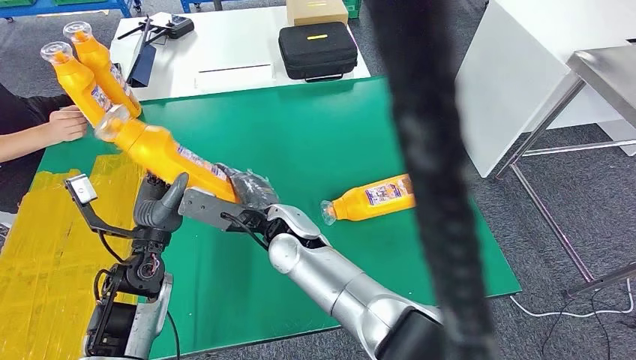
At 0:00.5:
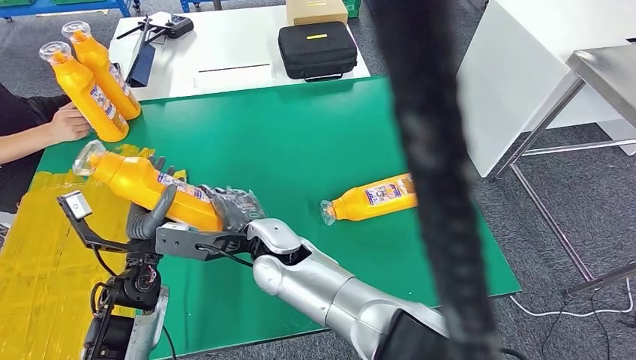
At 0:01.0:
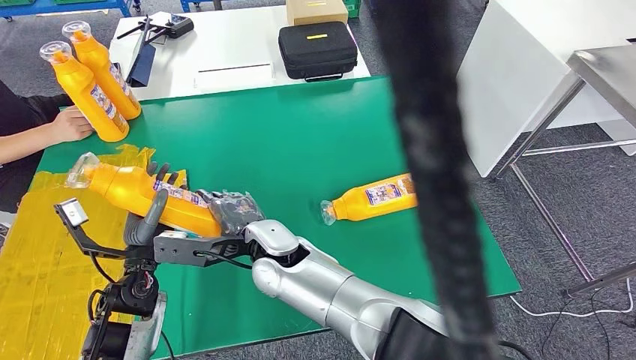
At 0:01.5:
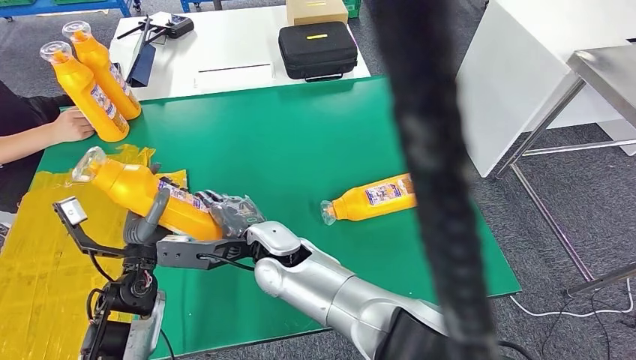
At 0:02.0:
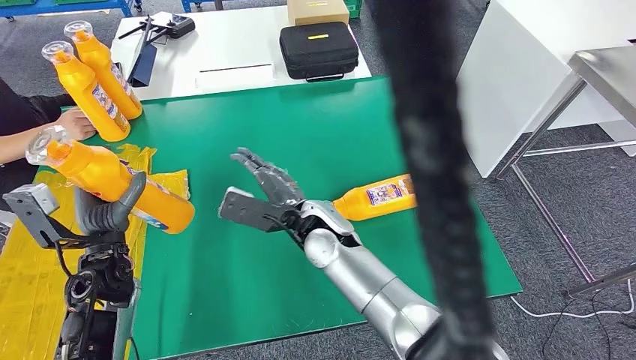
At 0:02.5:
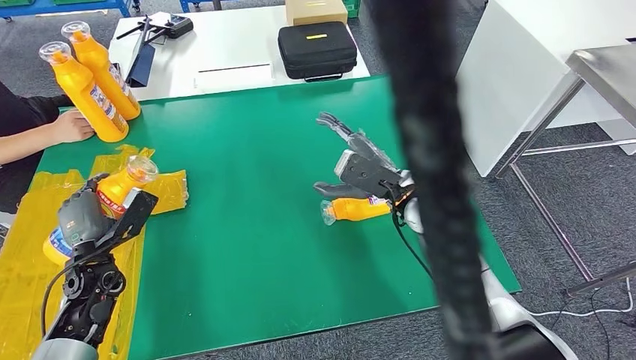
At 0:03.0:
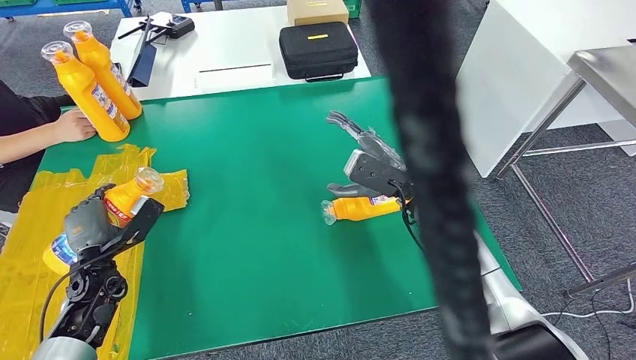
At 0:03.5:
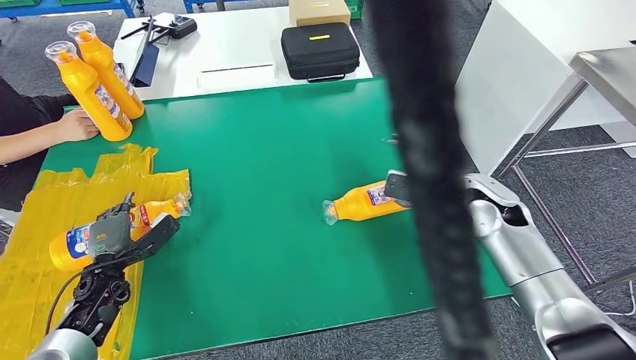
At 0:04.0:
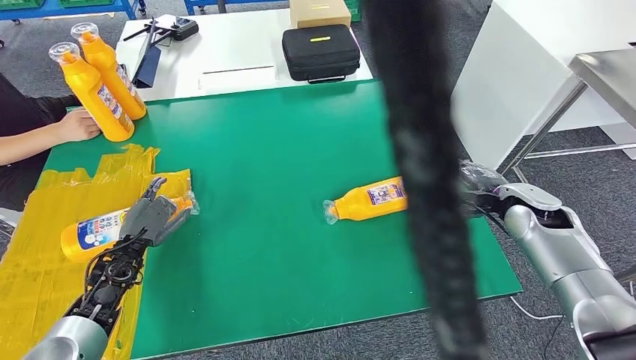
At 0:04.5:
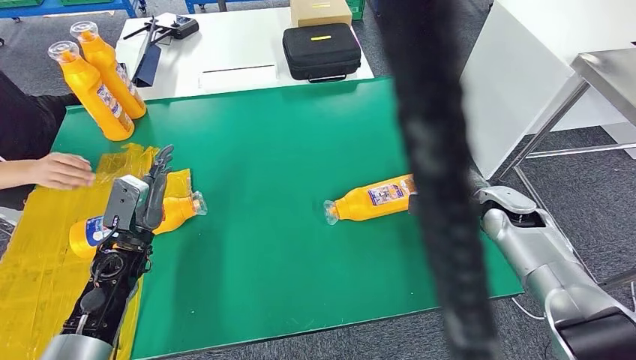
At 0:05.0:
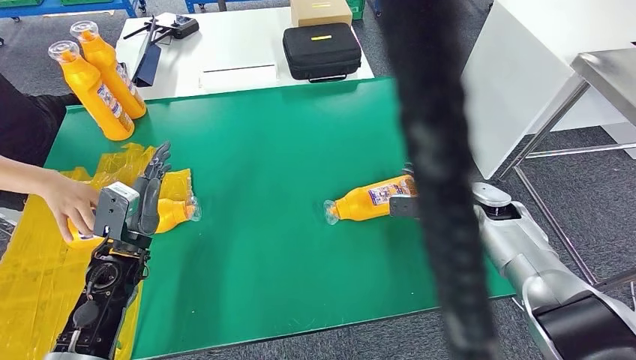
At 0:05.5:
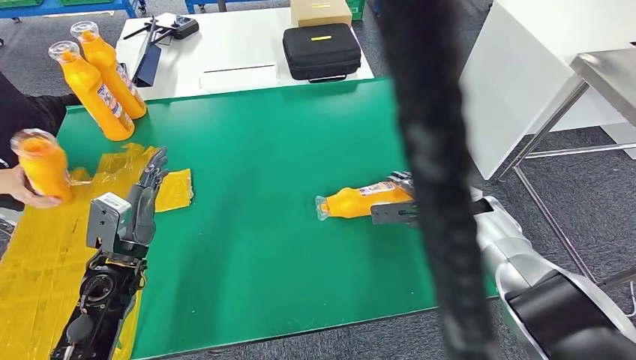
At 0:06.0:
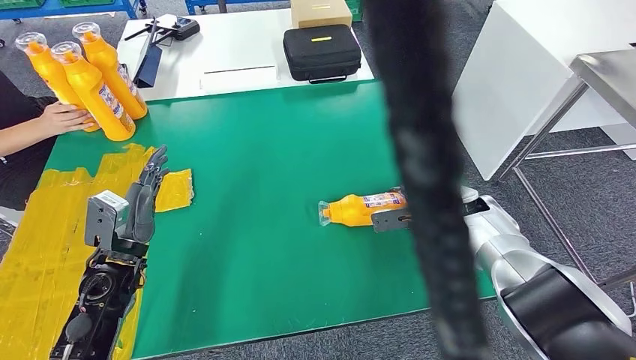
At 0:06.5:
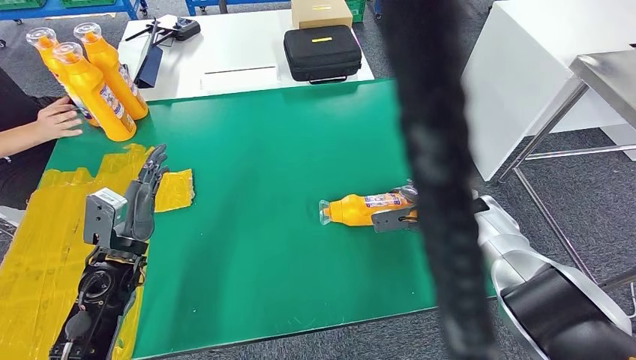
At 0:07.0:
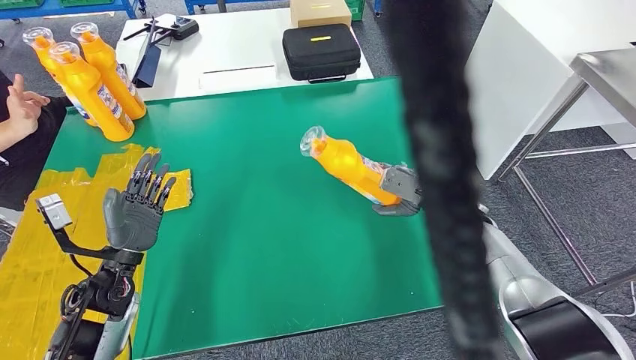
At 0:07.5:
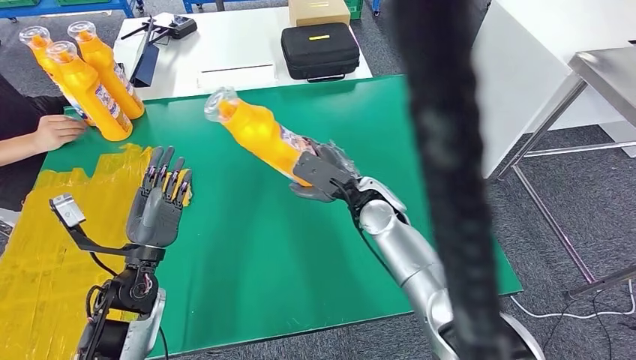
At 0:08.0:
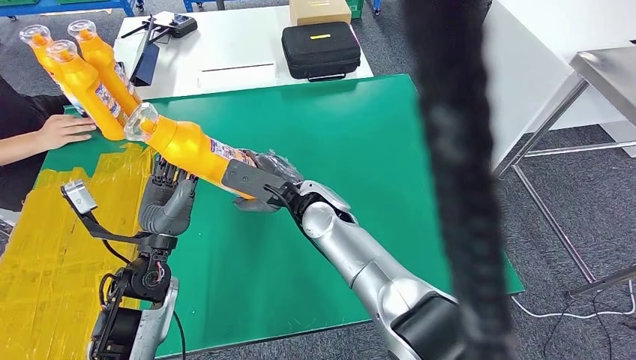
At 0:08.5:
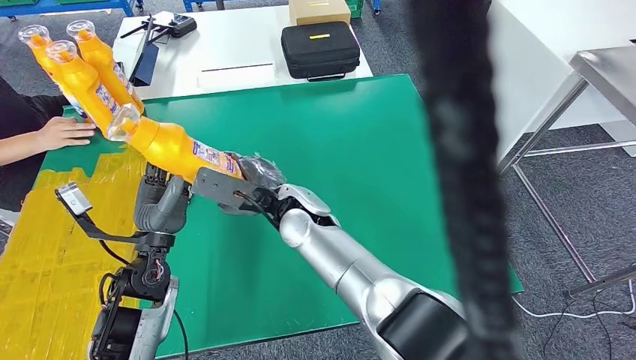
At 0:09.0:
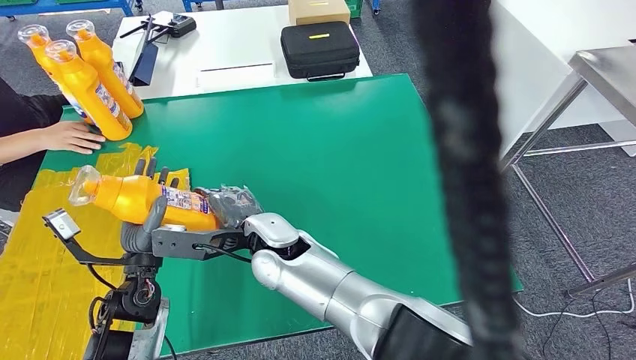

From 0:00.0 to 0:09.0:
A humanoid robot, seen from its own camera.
Step, from 0:01.5 to 0:04.5: Flip the fast-moving consumer goods bottle to the front side.

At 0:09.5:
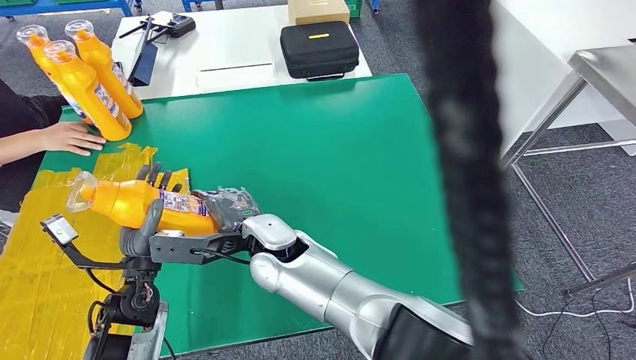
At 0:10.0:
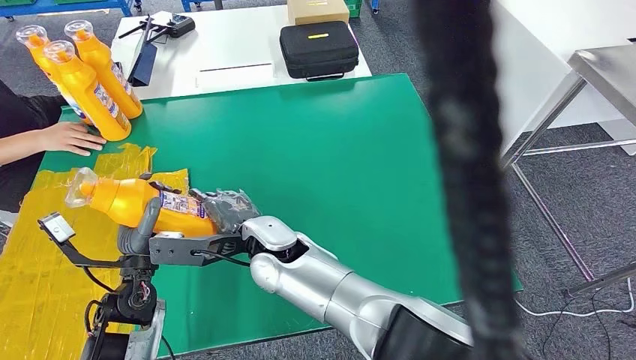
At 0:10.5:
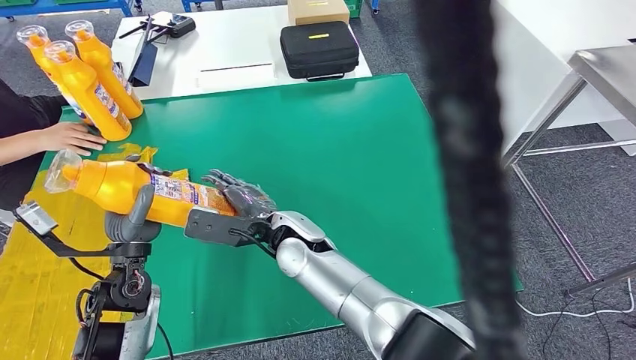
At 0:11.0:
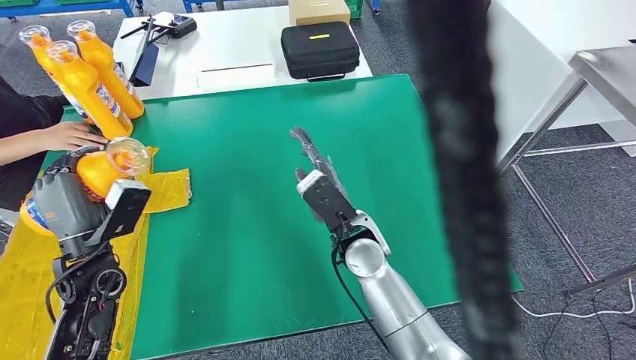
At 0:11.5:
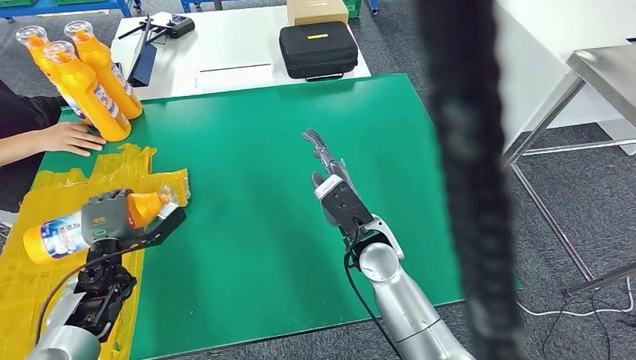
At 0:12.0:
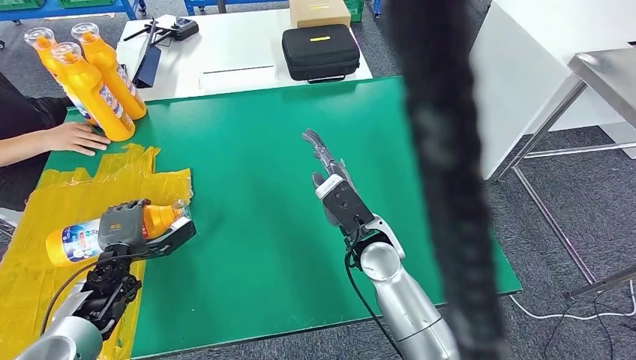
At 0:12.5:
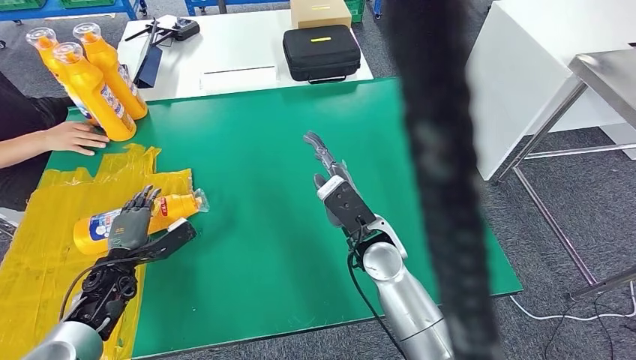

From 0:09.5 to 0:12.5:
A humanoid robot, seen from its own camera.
Step, from 0:09.5 to 0:12.5: Flip the fast-moving consumer goods bottle to the front side.
